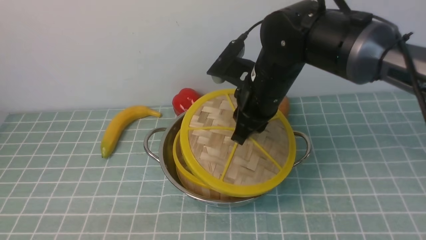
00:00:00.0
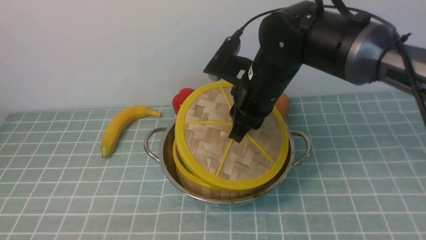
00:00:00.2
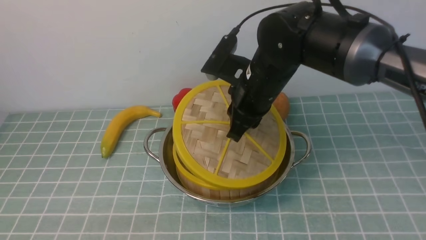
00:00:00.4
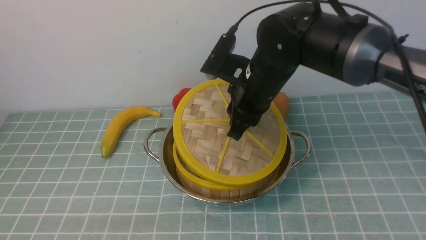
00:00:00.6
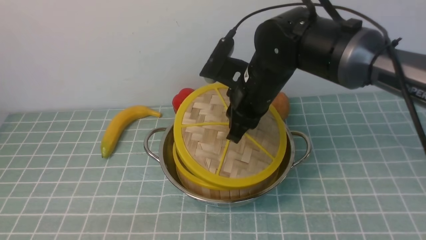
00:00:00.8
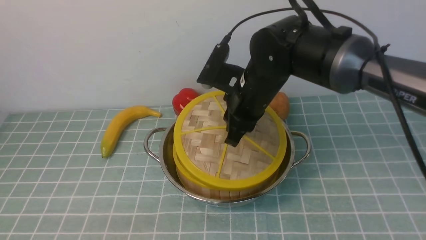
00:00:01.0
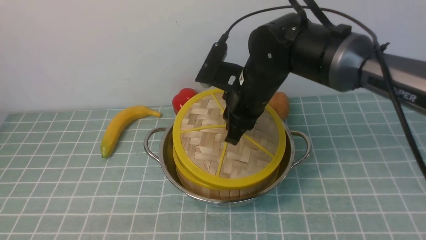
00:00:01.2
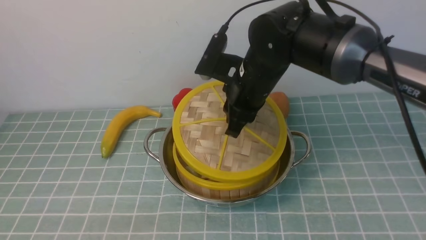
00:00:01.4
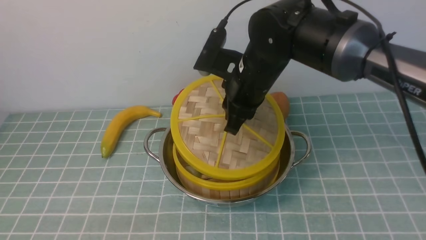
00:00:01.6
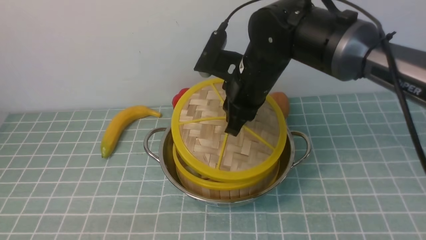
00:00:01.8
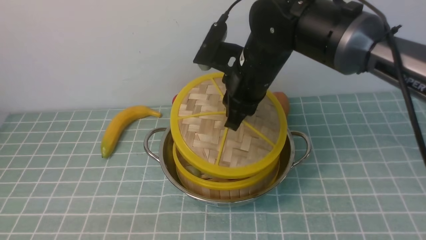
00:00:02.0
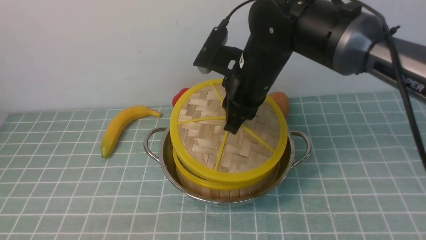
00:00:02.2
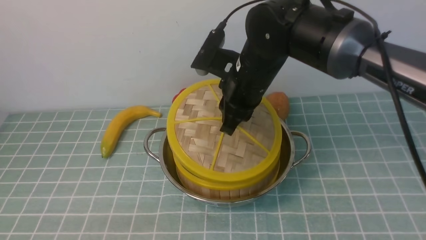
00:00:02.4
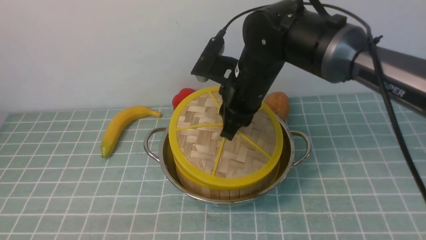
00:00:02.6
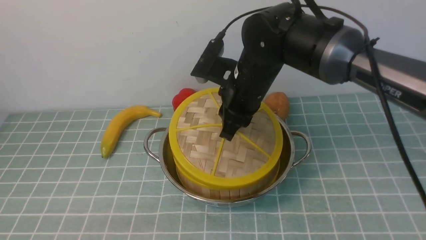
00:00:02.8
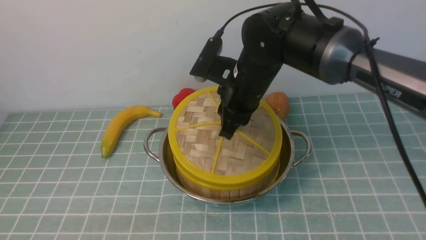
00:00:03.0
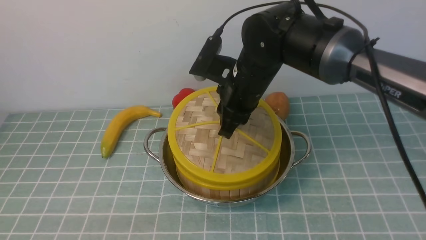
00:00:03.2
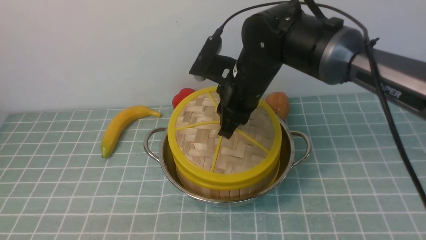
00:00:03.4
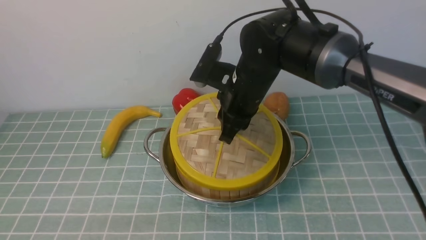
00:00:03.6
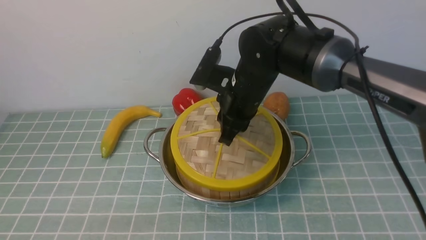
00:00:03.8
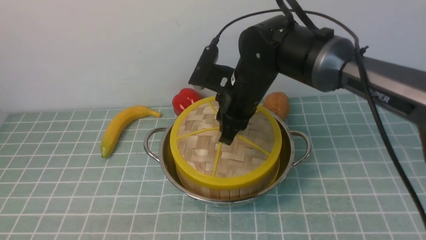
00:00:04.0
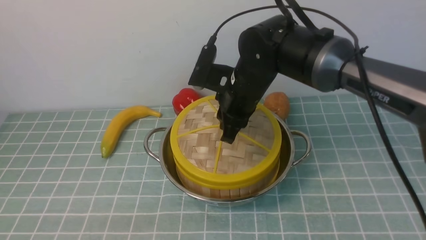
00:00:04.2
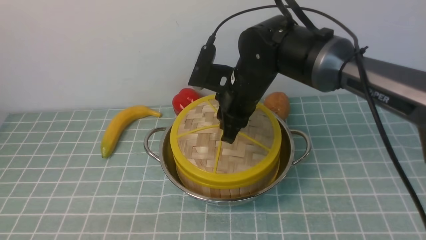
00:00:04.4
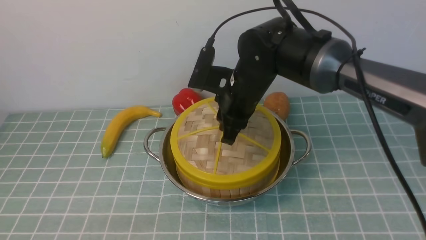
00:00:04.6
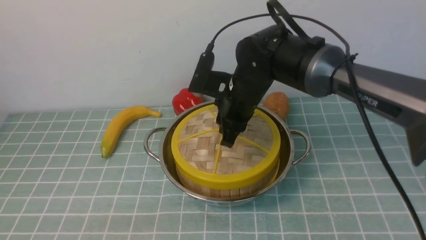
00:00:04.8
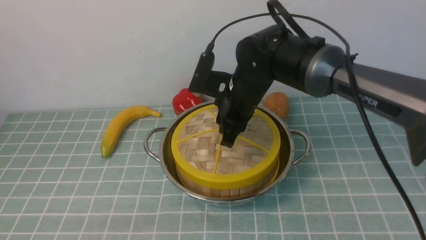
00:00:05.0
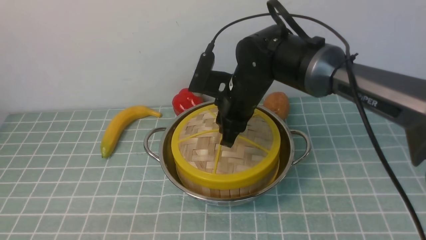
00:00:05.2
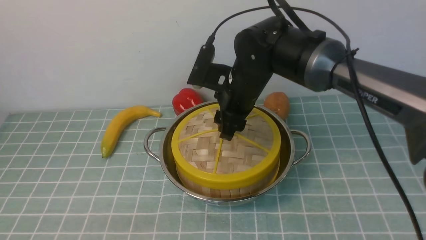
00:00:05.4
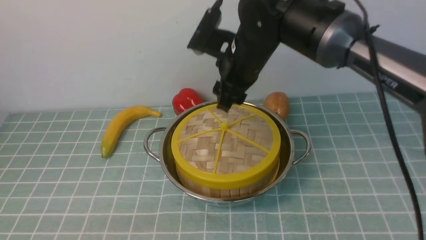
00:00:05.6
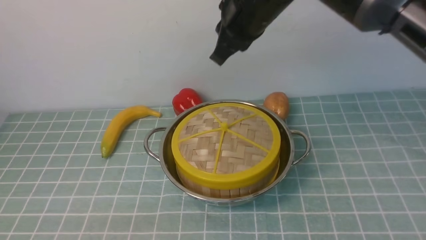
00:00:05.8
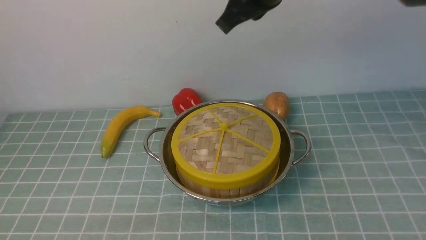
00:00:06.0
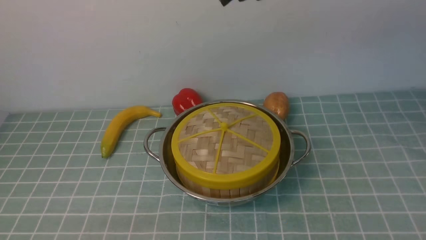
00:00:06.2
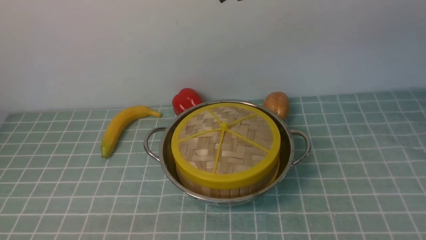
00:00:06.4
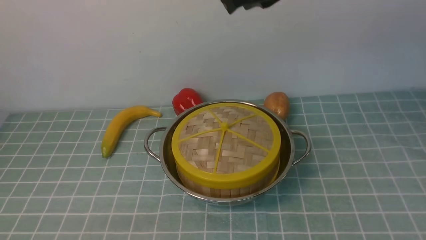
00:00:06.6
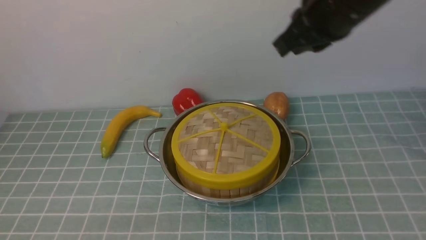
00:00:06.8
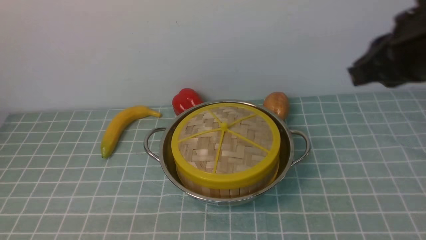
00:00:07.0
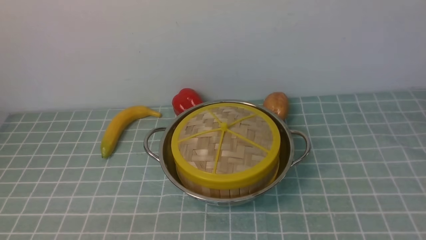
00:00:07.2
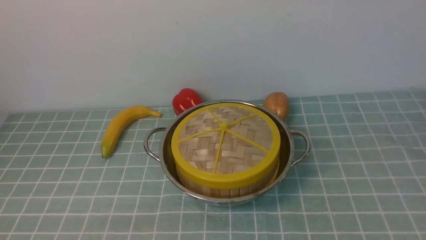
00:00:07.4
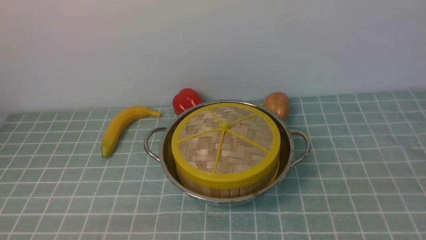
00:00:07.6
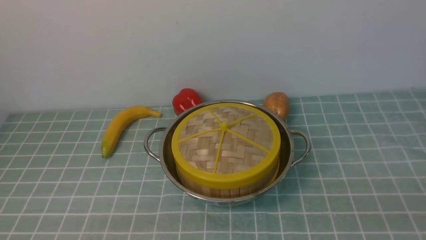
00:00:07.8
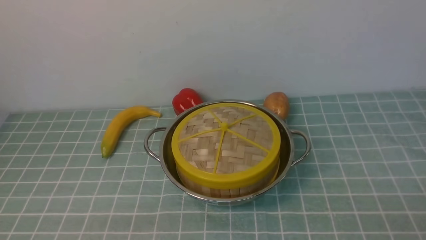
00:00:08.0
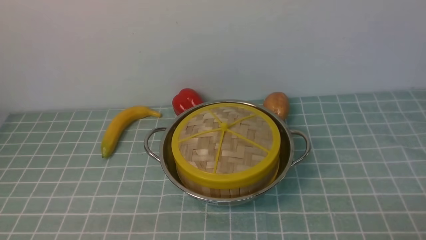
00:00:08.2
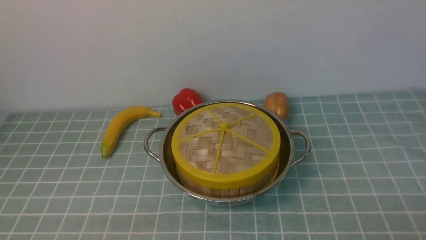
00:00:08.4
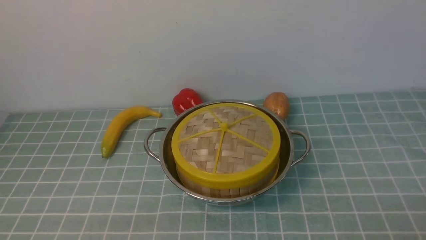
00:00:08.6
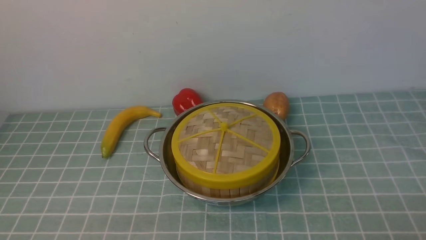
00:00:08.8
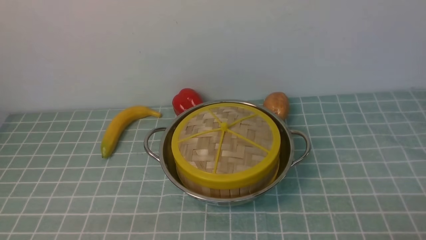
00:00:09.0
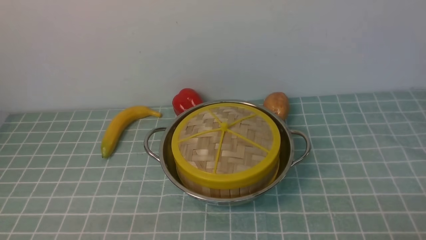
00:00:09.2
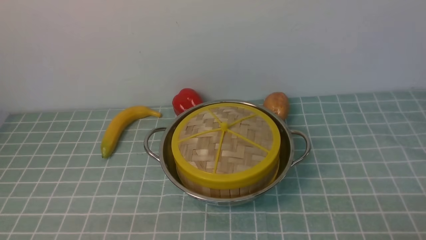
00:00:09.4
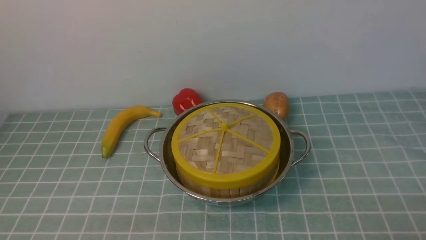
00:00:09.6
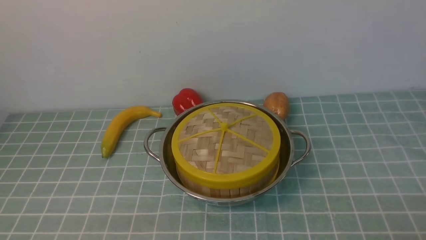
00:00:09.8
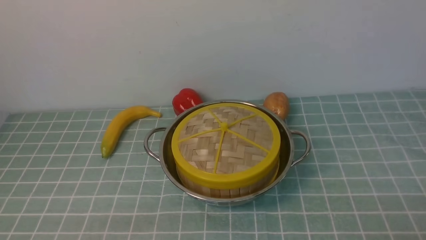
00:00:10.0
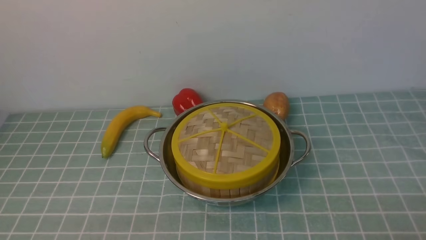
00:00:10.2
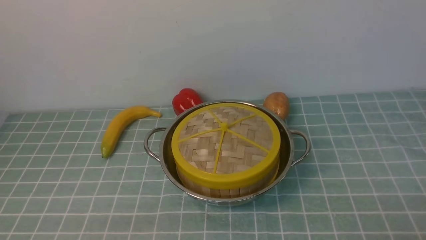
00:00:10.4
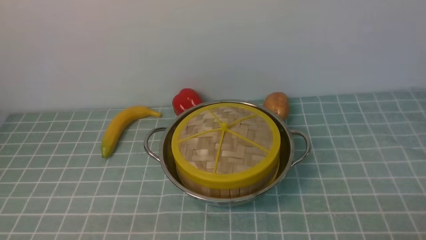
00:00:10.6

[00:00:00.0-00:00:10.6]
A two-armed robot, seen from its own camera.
Task of the whole recording: place the steamer in the pot on the blue tablecloth, and put the lid on the steamer.
Step, 00:00:00.0 to 00:00:05.8: use the right arm to place the steamer lid on the steamer.
00:00:00.0 to 00:00:01.6: The grippers stay close to where they were, moving slightly.
00:00:01.6 to 00:00:03.0: Neither gripper changes place.
00:00:03.0 to 00:00:04.6: There are only small adjustments of the grippers.
00:00:04.6 to 00:00:06.0: The right gripper goes roughly 15 cm upward, and opens, then closes again.
00:00:06.0 to 00:00:07.6: The right gripper heads backward, to the right and downward, covering about 40 cm.
00:00:09.0 to 00:00:10.6: Both grippers stay put.

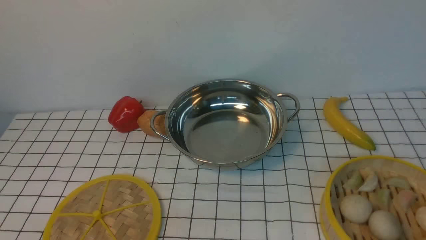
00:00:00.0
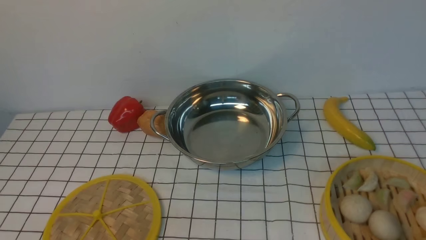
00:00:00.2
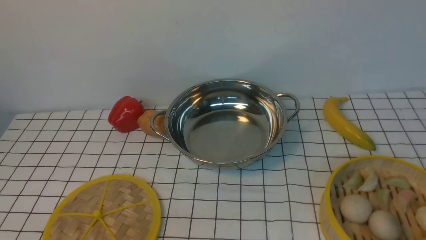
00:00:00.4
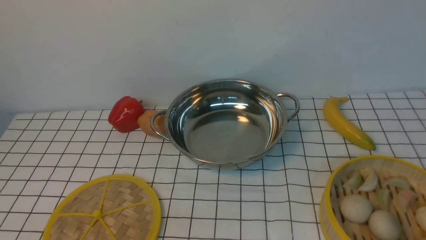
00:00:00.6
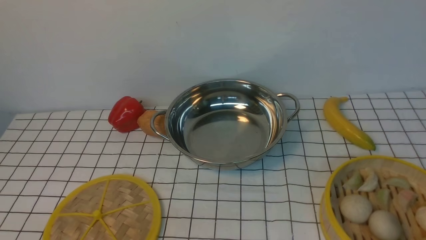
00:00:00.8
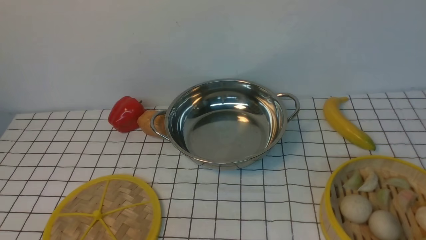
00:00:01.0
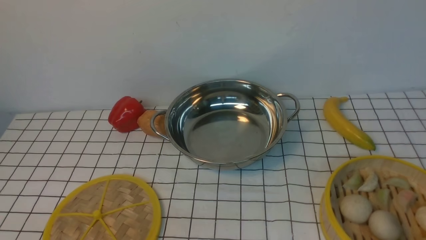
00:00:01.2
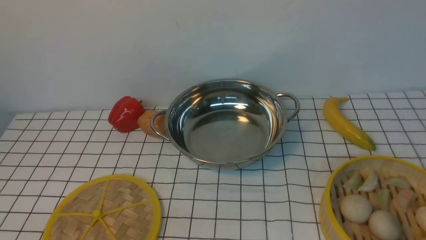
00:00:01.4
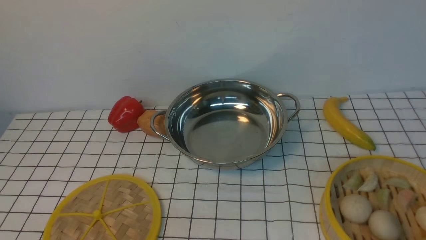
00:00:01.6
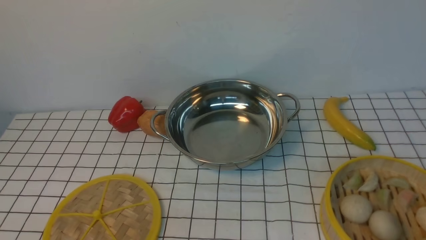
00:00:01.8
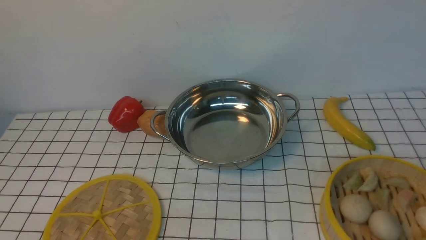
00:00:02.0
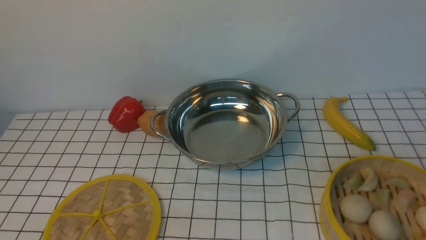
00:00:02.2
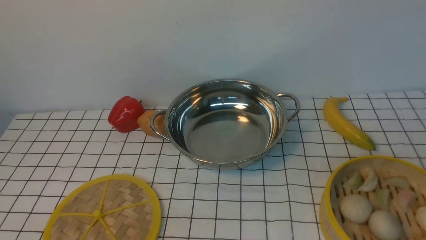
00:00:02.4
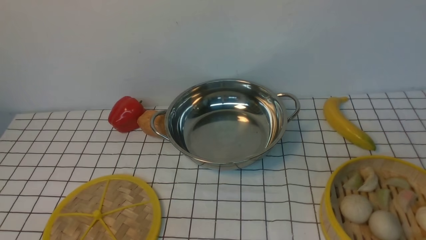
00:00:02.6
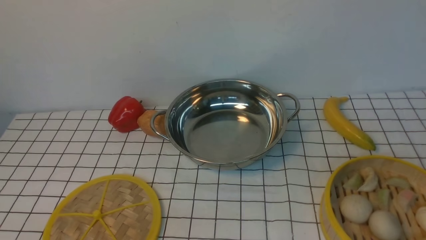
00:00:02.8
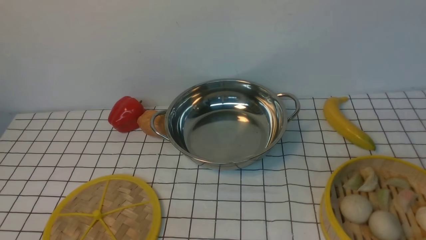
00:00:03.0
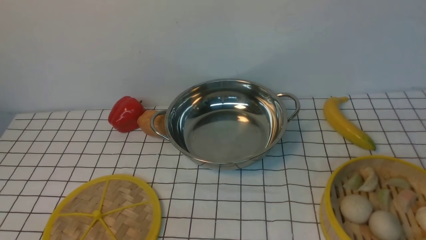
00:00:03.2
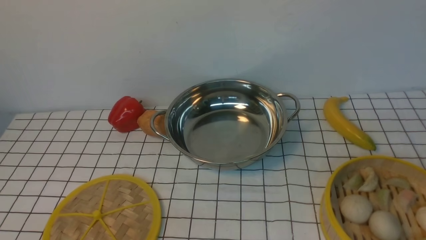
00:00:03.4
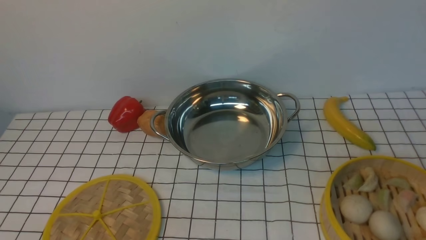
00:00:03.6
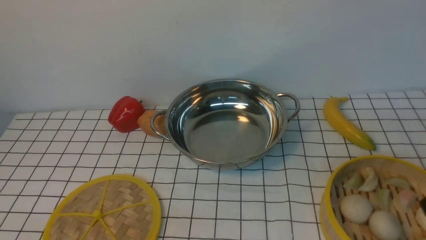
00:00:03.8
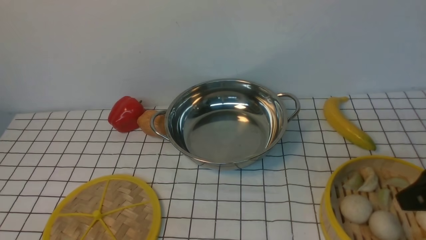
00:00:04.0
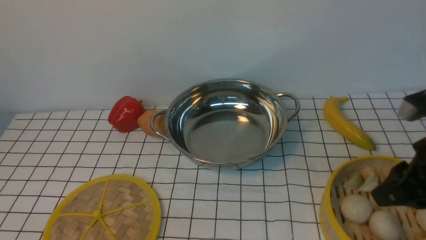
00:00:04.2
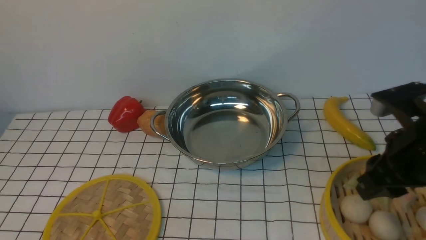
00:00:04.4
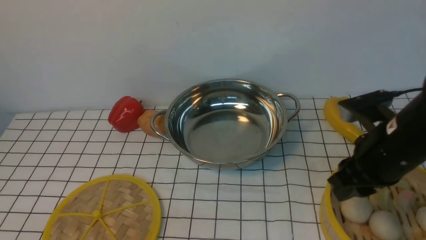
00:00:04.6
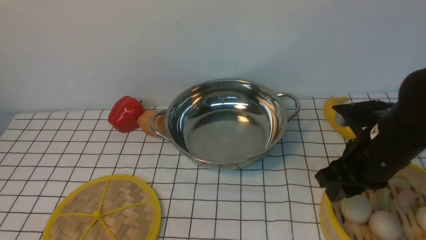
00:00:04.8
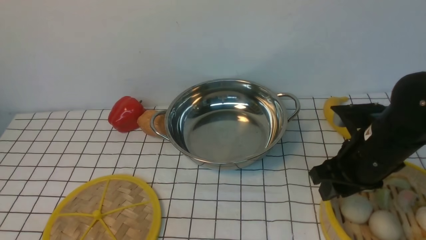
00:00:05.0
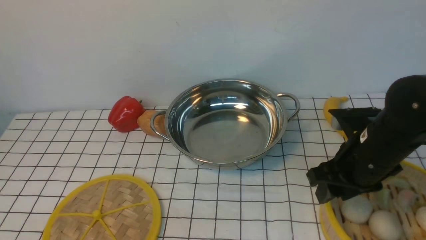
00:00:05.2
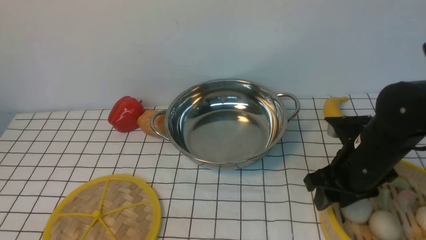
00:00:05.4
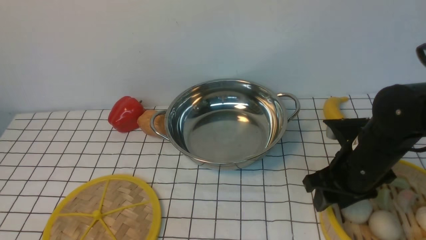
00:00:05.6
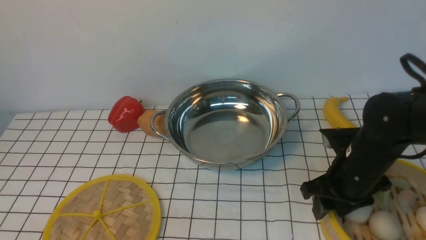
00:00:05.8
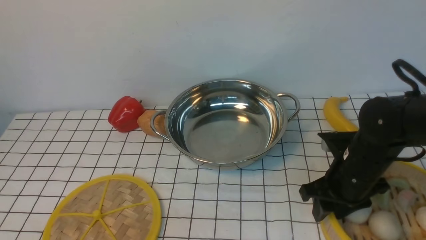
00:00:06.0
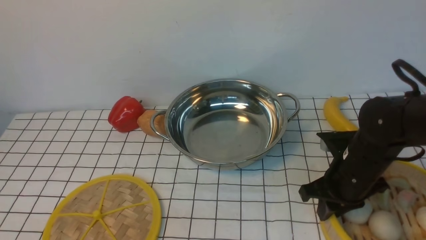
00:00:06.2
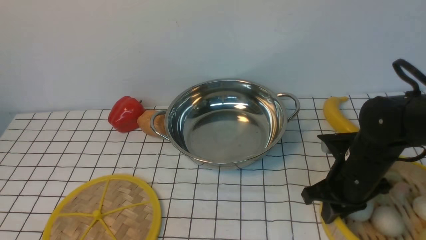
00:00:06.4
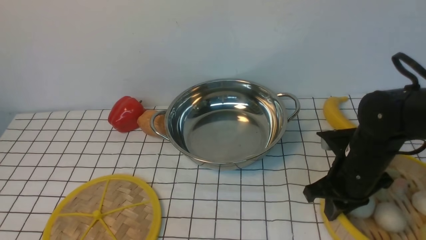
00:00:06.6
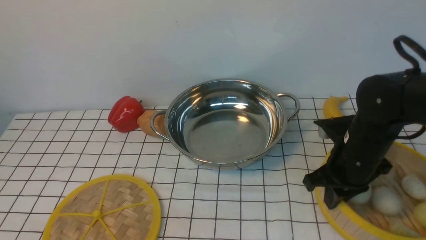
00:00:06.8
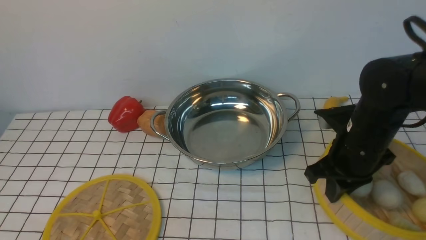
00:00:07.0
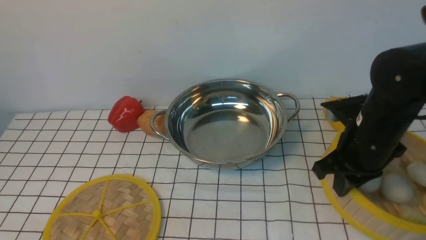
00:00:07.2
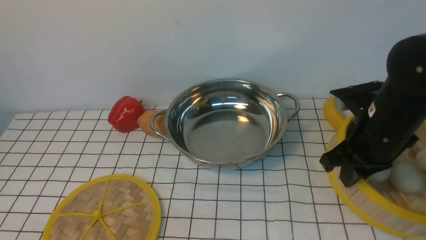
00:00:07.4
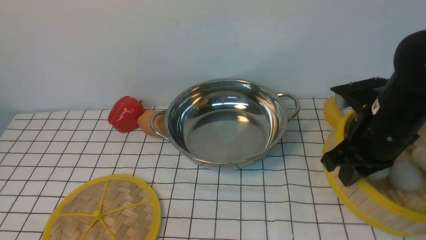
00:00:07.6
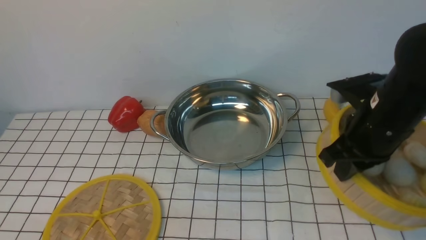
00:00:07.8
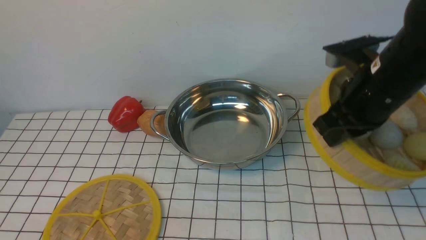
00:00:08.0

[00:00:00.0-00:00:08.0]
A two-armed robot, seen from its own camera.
Task of the whole recording: place the steamer in the pot on the white tablecloth, and put the lid on the steamer.
Step, 00:00:00.0 to 00:00:06.8: use the right arm to lift the steamer closest to it.
00:00:00.0 to 00:00:01.6: Both grippers stay about where they are.
00:00:03.2 to 00:00:04.8: The right gripper heads forward, to the left and downward, covering some 20 cm.
00:00:04.8 to 00:00:06.4: The right gripper goes some 5 cm downward, and closes.
00:00:06.4 to 00:00:08.0: The right gripper moves upward, about 15 cm.
